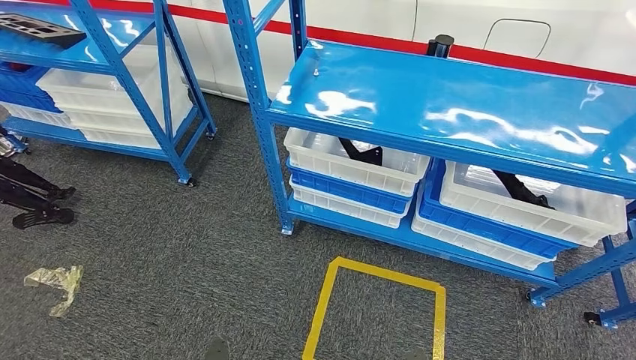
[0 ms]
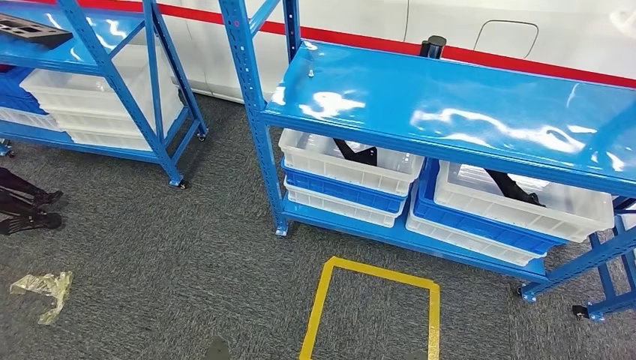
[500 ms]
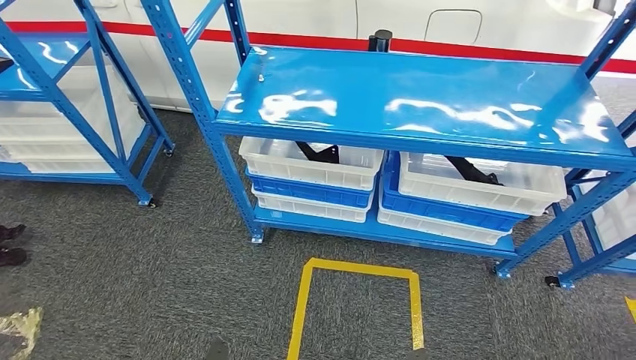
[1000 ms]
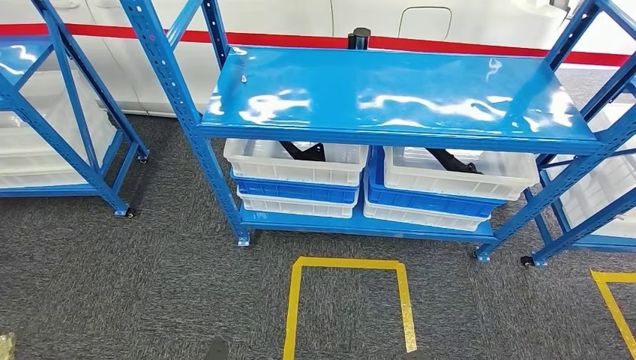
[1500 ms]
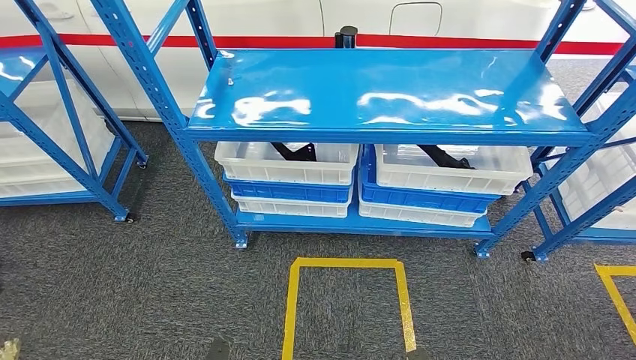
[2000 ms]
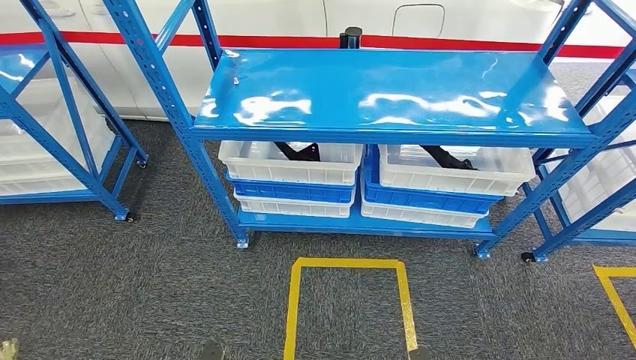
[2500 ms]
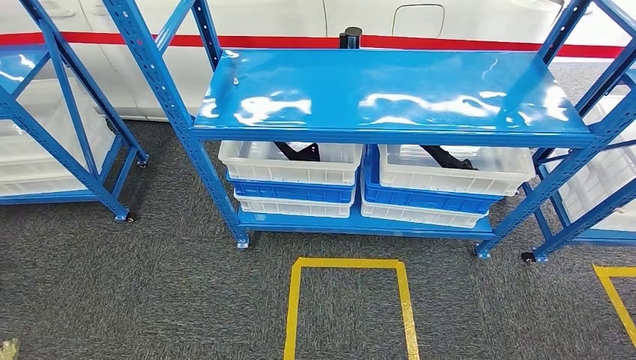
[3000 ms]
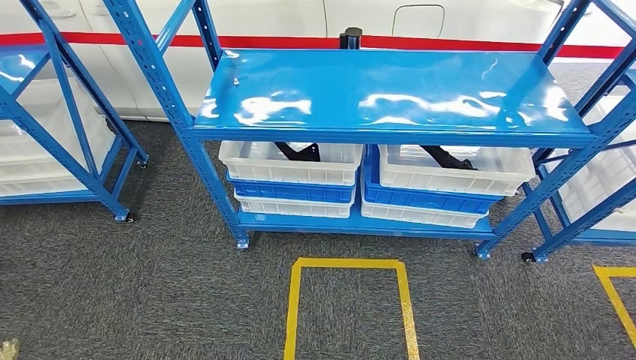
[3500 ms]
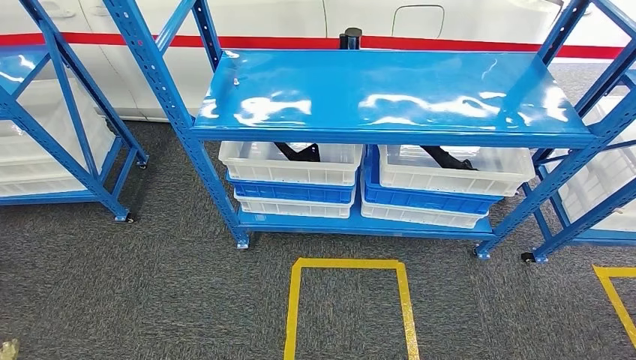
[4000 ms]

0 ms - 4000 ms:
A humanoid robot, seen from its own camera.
Step, 0 ms - 4000 ms: Move to the initial position of the shelf.
2000 ms - 4000 ms: The right hand moves backward, about 10 cm. Meanwhile the left hand goes approximately 15 cm backward and to the left.
